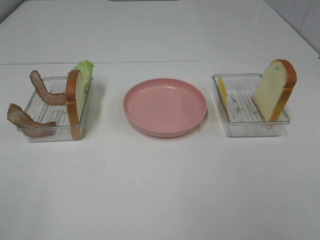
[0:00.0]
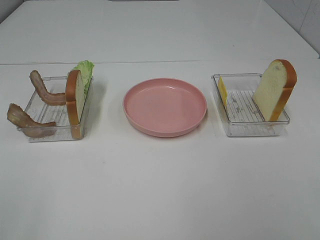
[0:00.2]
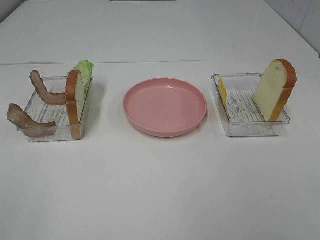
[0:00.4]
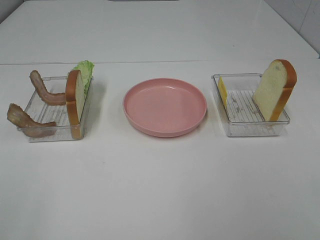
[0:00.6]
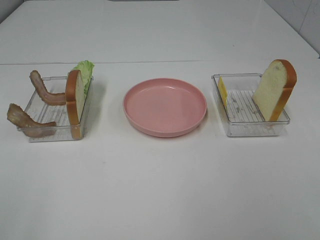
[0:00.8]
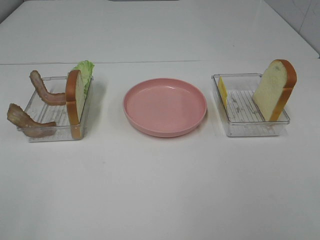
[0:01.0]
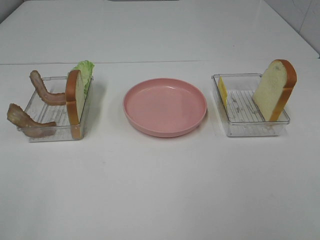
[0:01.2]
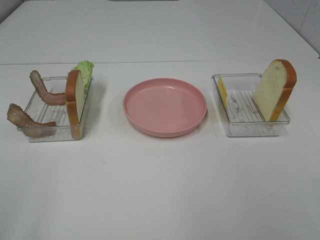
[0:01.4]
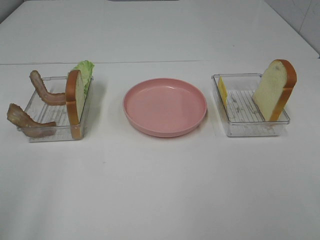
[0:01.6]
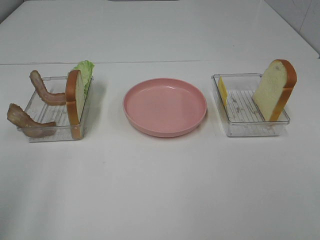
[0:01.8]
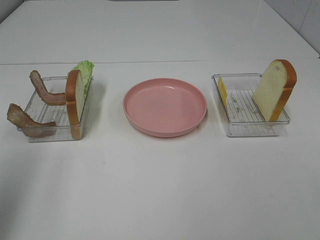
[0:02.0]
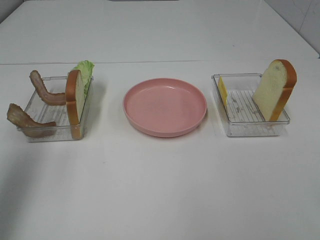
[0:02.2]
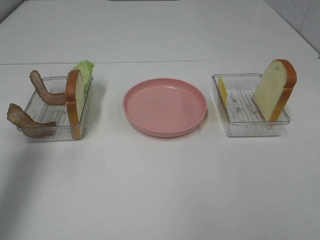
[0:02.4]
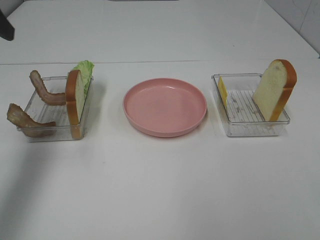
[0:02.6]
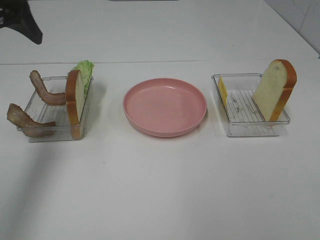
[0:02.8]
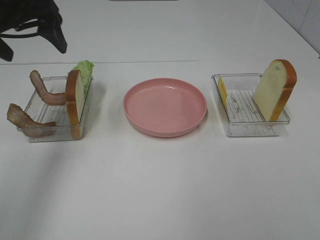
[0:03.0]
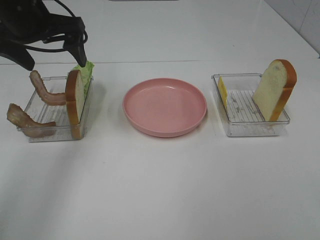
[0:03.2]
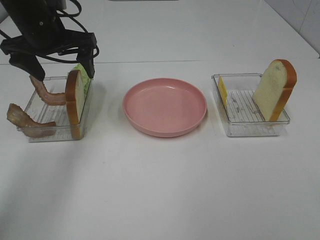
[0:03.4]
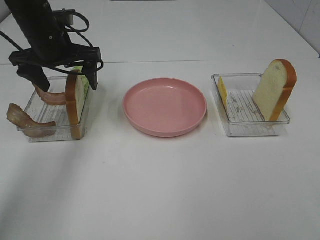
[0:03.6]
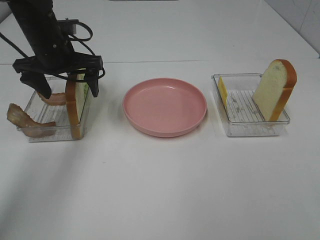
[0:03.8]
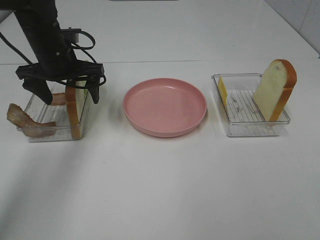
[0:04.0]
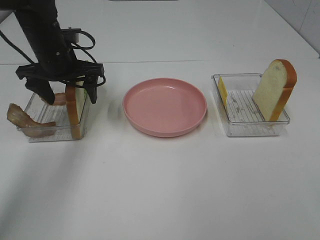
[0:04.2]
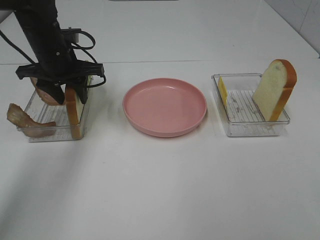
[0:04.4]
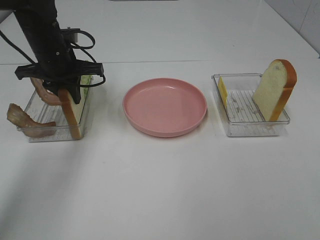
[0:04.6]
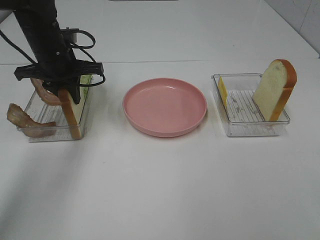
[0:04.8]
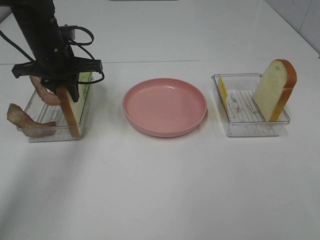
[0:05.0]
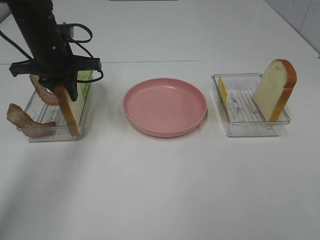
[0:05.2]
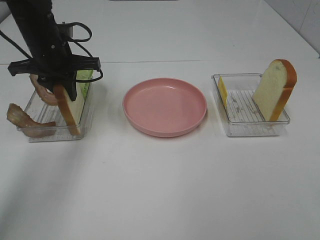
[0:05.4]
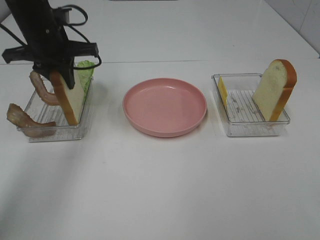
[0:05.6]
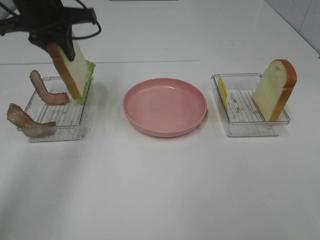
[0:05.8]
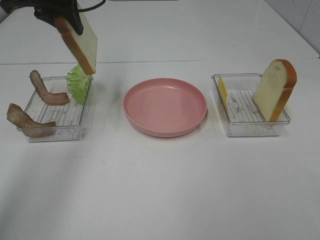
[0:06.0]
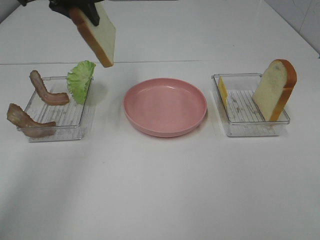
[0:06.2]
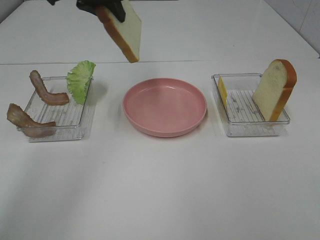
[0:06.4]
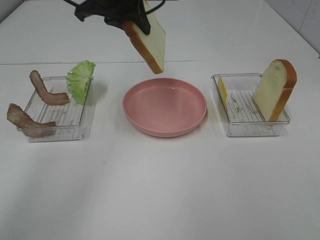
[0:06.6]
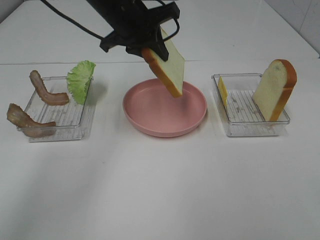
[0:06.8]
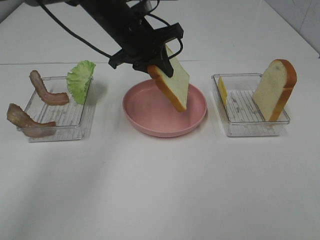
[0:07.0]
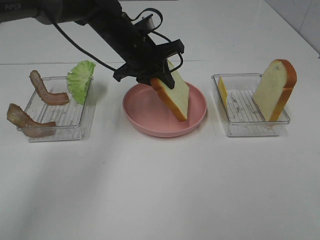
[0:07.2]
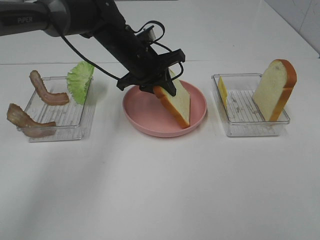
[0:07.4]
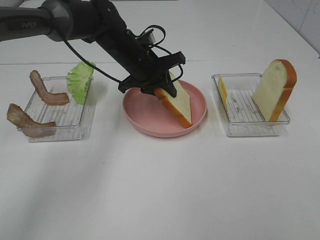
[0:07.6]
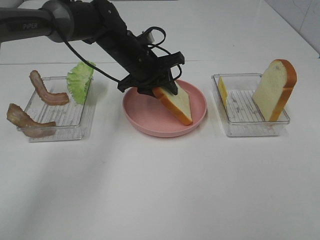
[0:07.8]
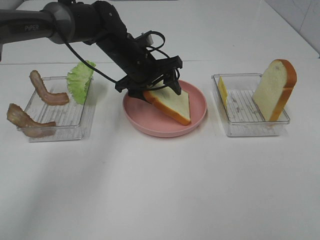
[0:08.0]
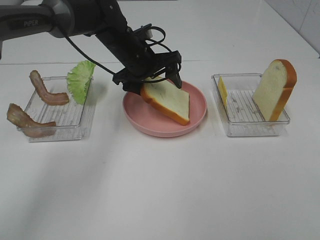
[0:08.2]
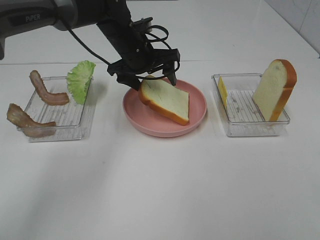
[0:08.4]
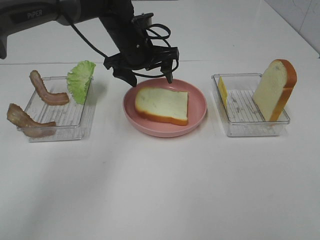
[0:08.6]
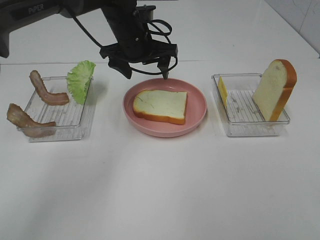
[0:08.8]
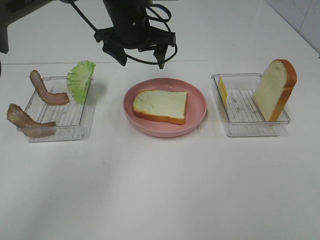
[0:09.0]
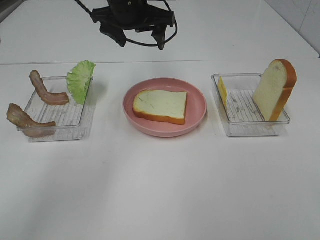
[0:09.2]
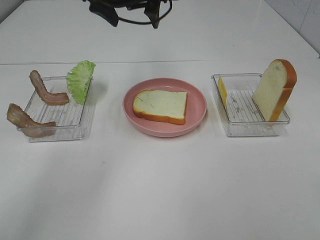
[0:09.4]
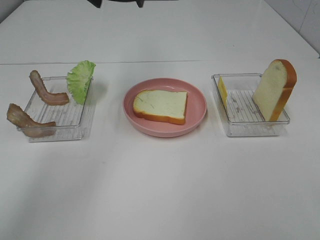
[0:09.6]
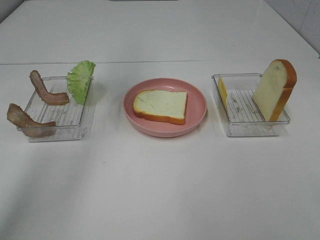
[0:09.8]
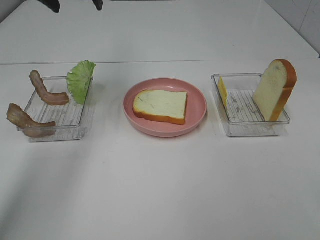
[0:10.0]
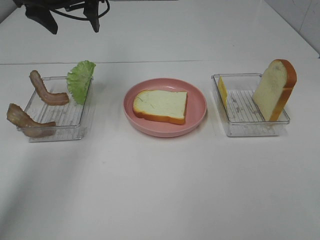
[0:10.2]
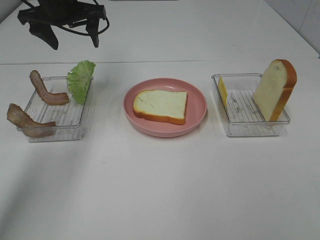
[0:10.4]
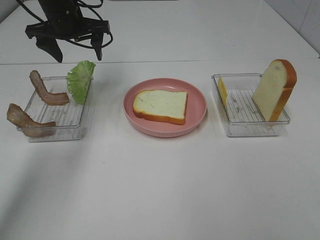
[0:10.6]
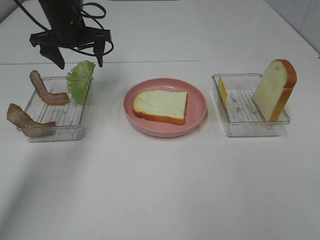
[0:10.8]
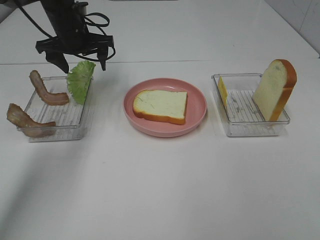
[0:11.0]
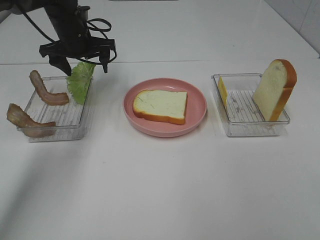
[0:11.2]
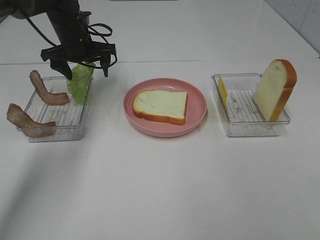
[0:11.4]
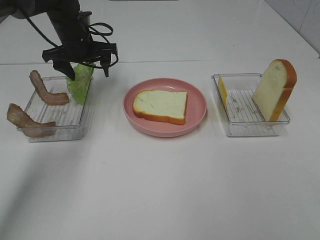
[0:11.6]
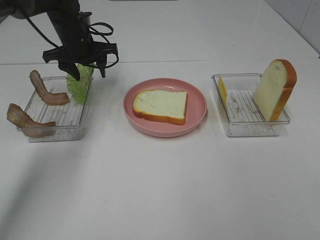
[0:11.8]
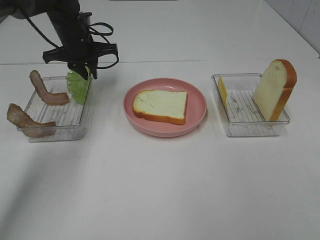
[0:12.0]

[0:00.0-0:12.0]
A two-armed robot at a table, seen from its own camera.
Task of the whole recording: Make sandwiches.
Step, 0:00.0 to 0:04.6: Left hand:grab the bread slice.
Step, 0:04.8 to 0:09.0: Left hand:place the bread slice on the plate.
0:01.6 to 0:03.0: The left gripper travels forward by approximately 30 cm.
0:03.0 to 0:04.4: The left gripper is displaced downward and forward by approximately 15 cm, and closes up.
0:04.4 to 0:06.0: The left gripper moves upward, about 15 cm.
0:06.0 to 0:07.6: The left gripper is displaced downward and to the right by about 20 cm.
0:07.6 to 0:09.0: The left gripper moves upward, approximately 10 cm, and opens its fingers.
0:09.0 to 0:10.4: The left gripper is displaced to the left by approximately 15 cm.
0:10.4 to 0:12.0: The left gripper goes some 10 cm downward, and closes its fingers.

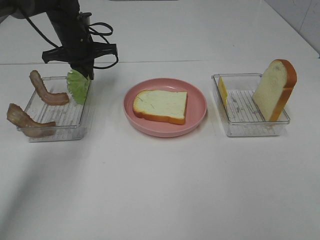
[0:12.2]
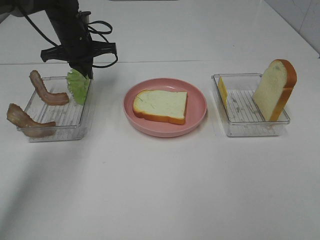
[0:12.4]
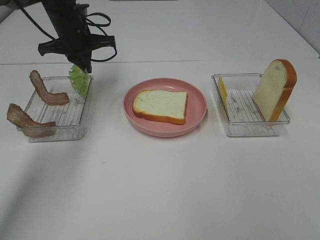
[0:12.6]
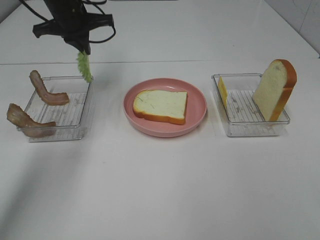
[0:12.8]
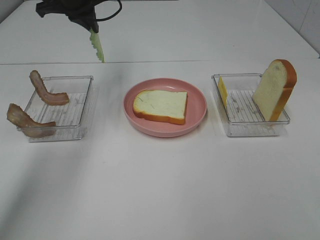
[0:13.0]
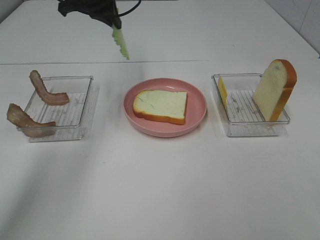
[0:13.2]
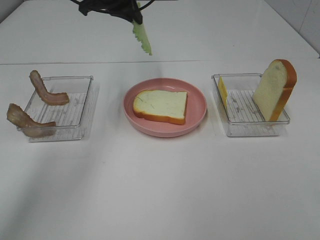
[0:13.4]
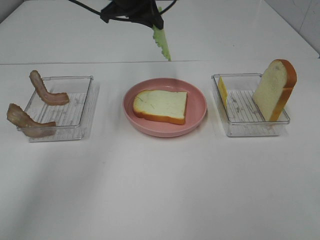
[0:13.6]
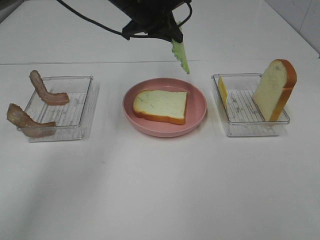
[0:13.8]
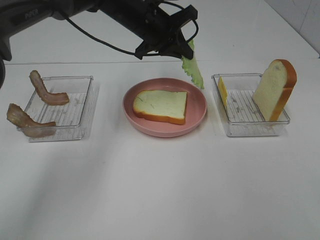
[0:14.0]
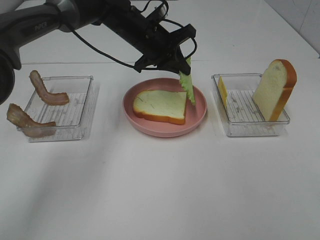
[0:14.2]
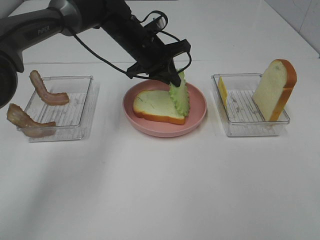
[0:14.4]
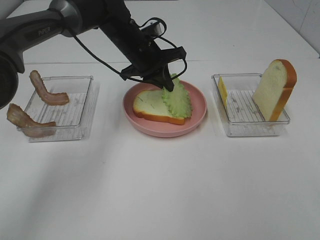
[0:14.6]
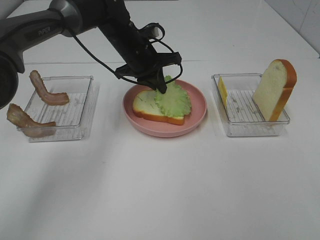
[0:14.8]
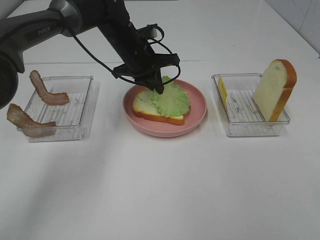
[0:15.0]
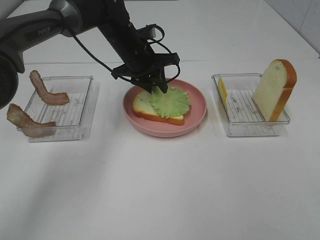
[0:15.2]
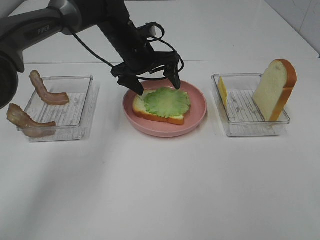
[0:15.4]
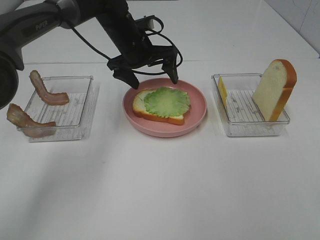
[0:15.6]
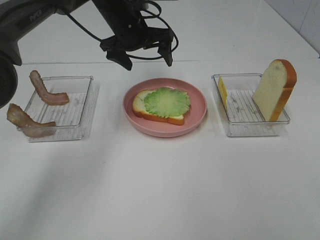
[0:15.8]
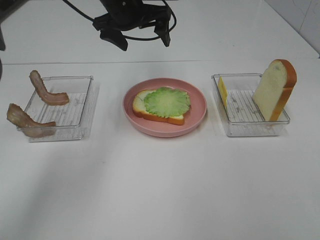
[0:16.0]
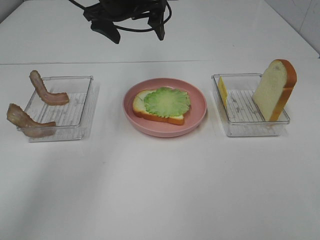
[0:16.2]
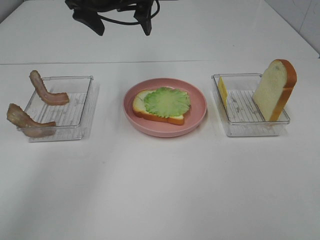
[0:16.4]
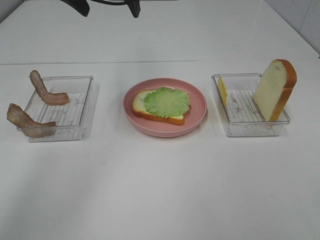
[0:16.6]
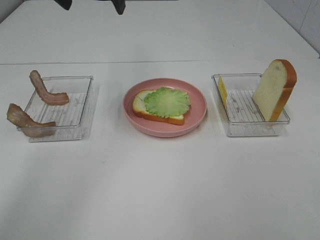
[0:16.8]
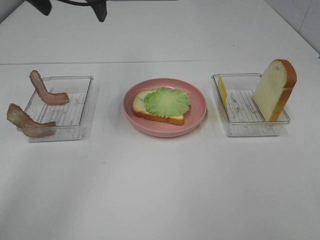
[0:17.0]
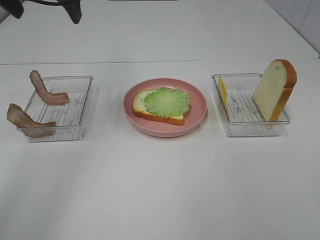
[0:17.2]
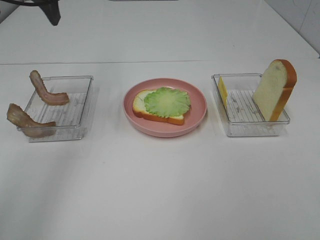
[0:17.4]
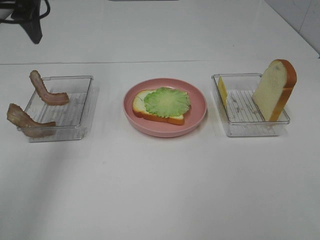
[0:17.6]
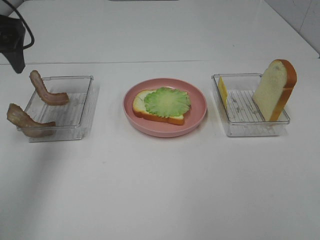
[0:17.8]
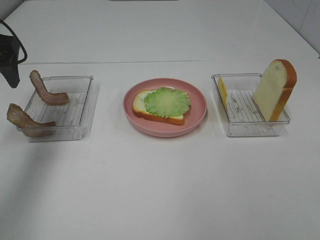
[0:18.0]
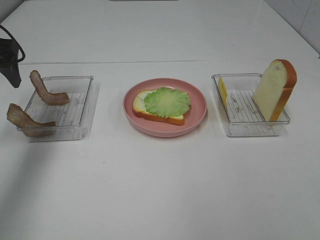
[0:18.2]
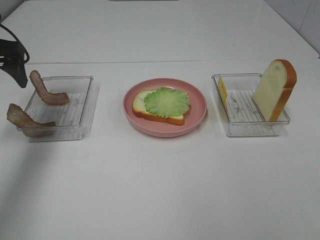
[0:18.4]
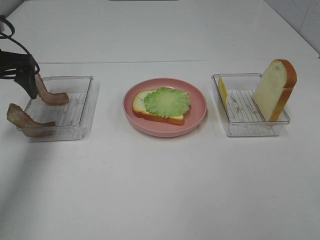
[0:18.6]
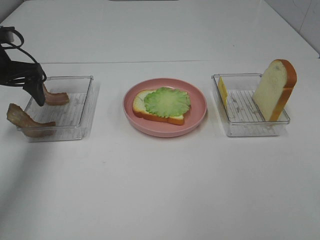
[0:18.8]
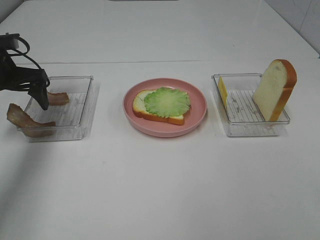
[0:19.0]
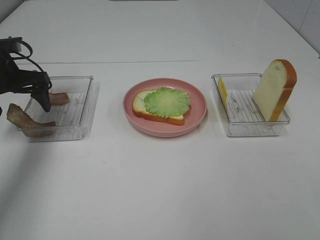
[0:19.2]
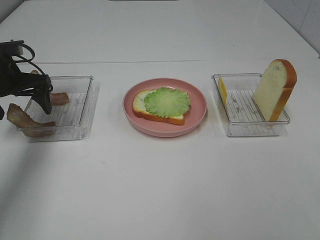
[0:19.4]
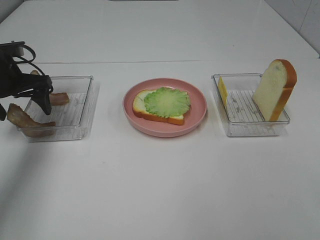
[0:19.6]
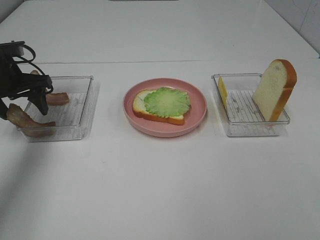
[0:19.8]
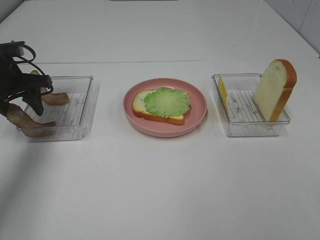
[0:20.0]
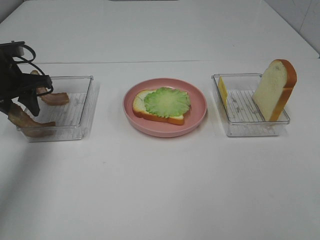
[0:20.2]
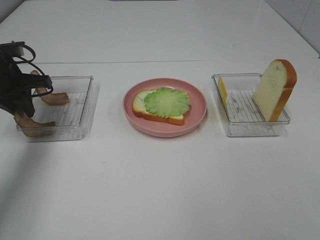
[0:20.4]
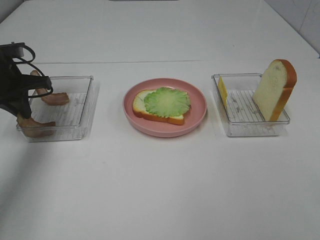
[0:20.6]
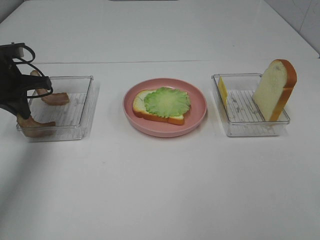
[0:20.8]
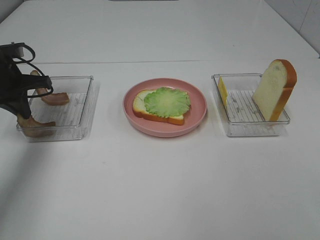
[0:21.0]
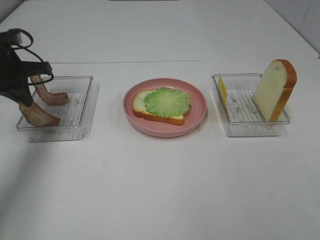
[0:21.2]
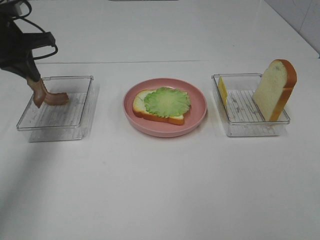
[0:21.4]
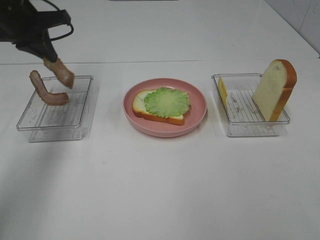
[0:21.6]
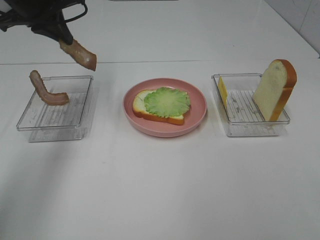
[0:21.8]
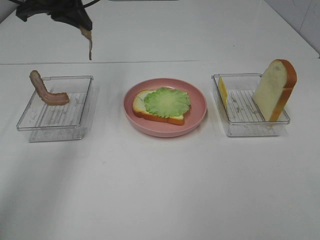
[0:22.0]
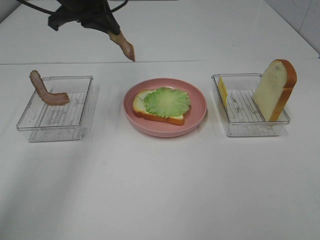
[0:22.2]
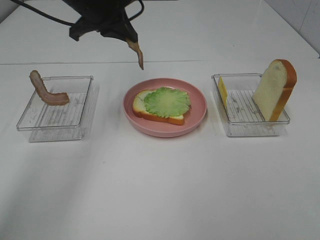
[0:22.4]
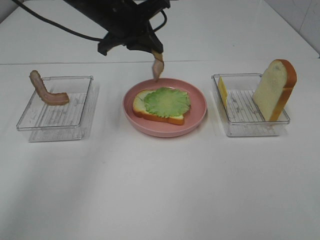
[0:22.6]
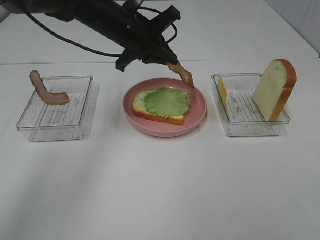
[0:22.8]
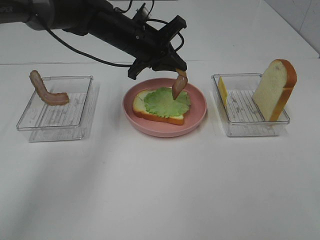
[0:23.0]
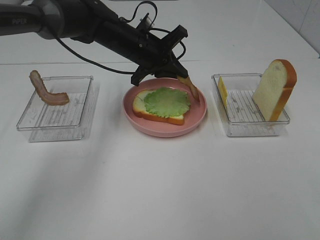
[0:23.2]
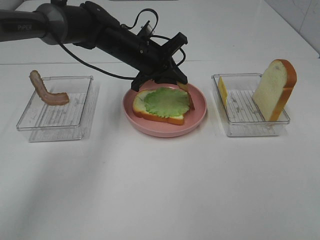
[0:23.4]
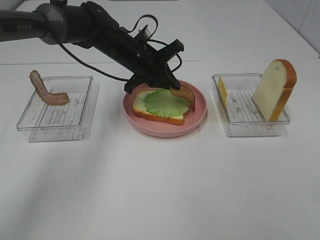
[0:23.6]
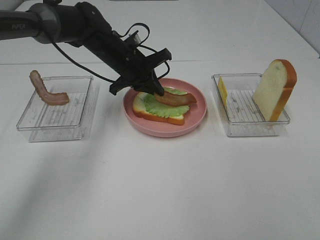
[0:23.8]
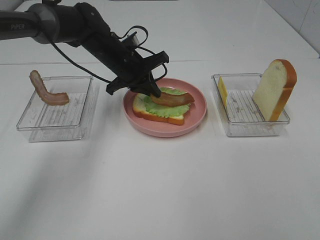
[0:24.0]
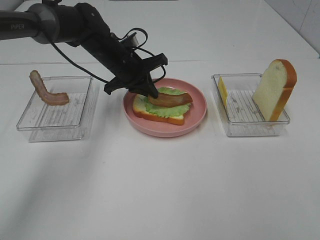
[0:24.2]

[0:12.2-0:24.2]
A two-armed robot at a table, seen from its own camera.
Task of the whole recording: Make sandwiches.
Step, 0:12.6 to 0:15.4: Left hand:place the lettuce slice on the bread slice.
Step, 0:15.6 to 0:21.0: Left hand:grab the bacon.
0:12.2 to 0:13.8: The left gripper shifts roughly 15 cm to the right and upward.
0:13.8 to 0:15.2: The left gripper is displaced downward by roughly 10 cm, and opens its fingers.
0:15.2 to 0:16.6: The left gripper moves upward, roughly 20 cm, and opens its fingers.
0:16.6 to 0:18.2: The left gripper travels to the left and downward by roughly 20 cm.
0:18.2 to 0:19.8: The left gripper moves downward, some 10 cm.
0:19.8 to 0:21.2: The left gripper closes its fingers.
0:21.2 to 0:22.6: The left gripper moves to the right, approximately 20 cm.
0:22.6 to 0:24.2: The left gripper is displaced downward by some 10 cm.
